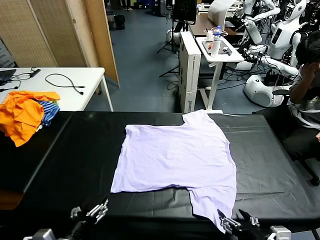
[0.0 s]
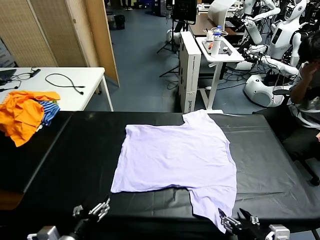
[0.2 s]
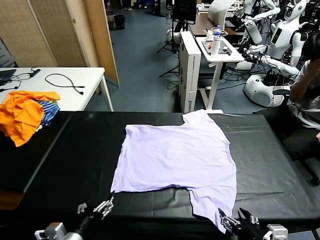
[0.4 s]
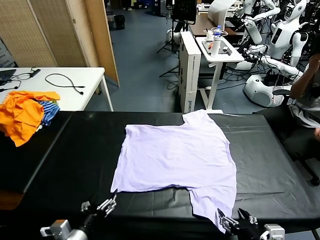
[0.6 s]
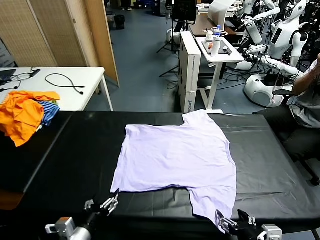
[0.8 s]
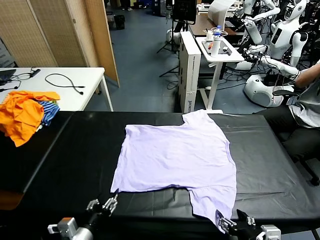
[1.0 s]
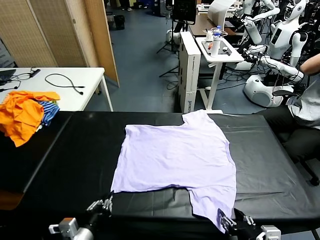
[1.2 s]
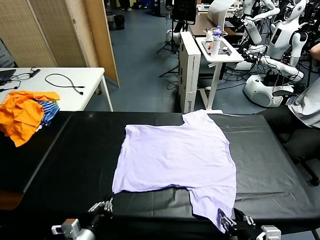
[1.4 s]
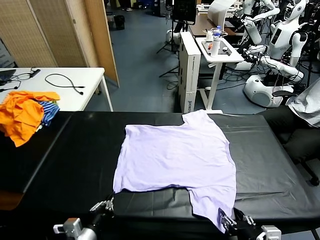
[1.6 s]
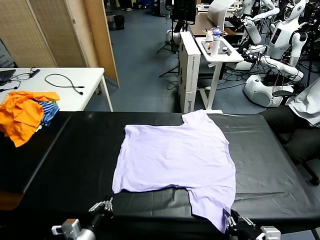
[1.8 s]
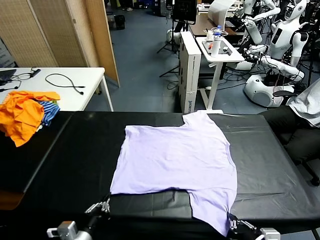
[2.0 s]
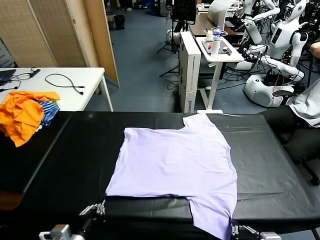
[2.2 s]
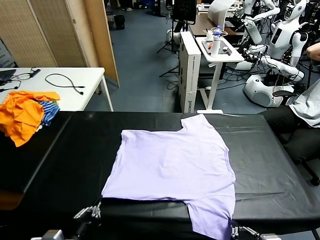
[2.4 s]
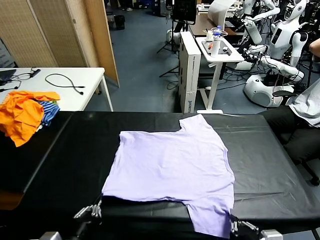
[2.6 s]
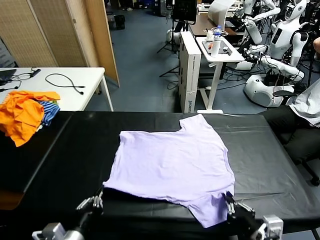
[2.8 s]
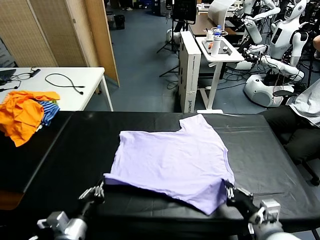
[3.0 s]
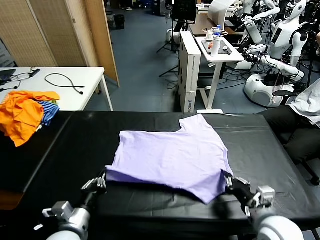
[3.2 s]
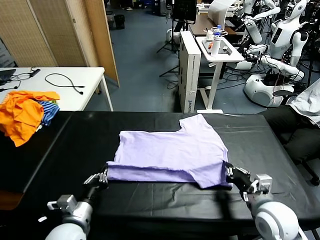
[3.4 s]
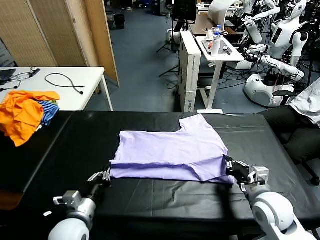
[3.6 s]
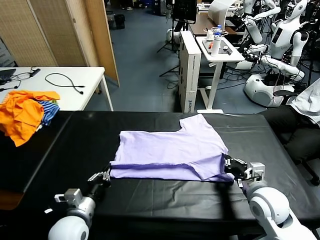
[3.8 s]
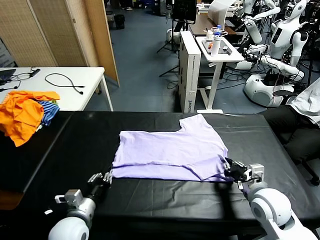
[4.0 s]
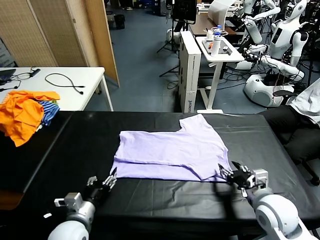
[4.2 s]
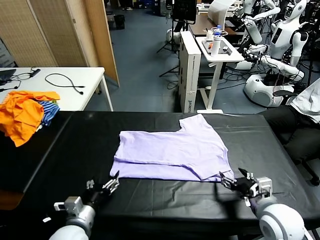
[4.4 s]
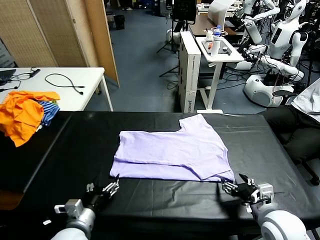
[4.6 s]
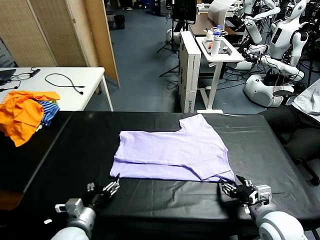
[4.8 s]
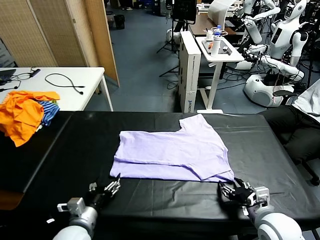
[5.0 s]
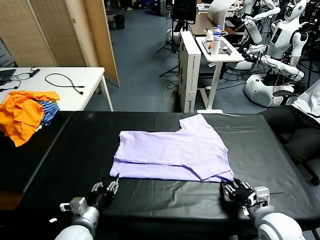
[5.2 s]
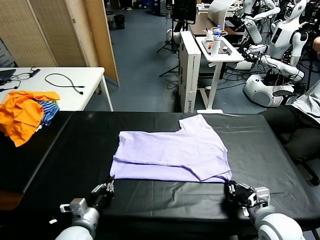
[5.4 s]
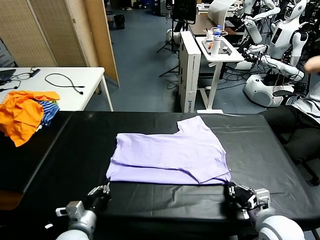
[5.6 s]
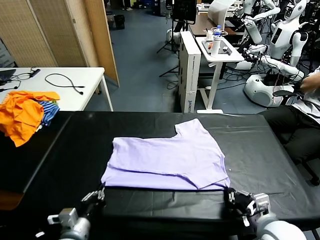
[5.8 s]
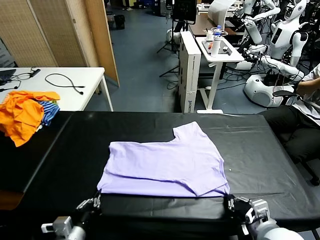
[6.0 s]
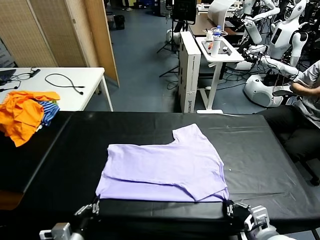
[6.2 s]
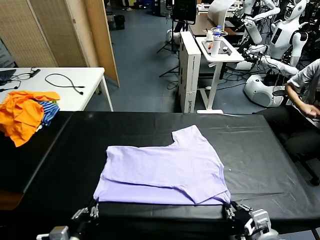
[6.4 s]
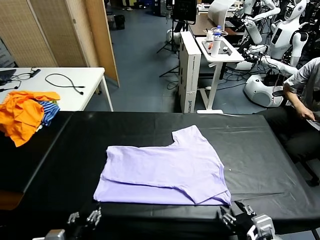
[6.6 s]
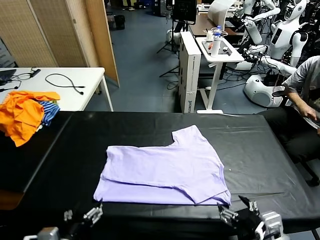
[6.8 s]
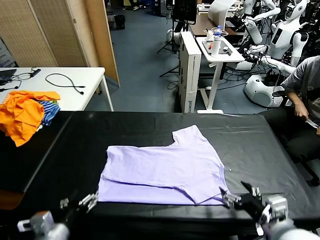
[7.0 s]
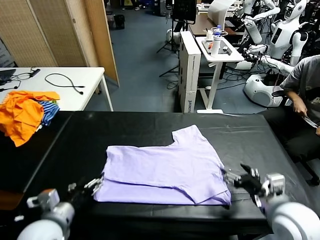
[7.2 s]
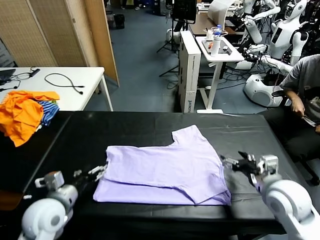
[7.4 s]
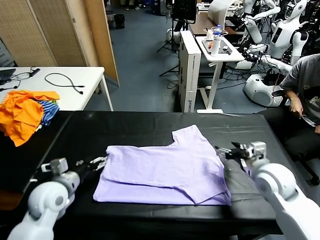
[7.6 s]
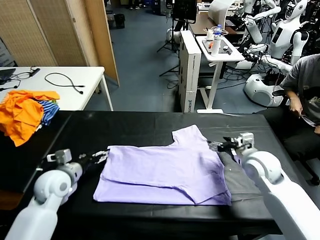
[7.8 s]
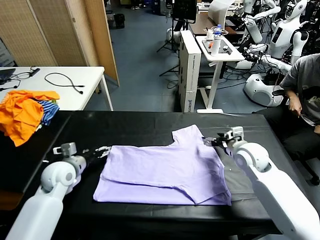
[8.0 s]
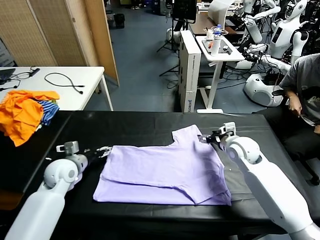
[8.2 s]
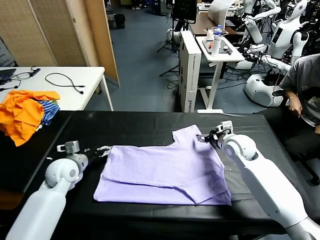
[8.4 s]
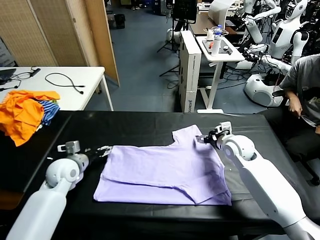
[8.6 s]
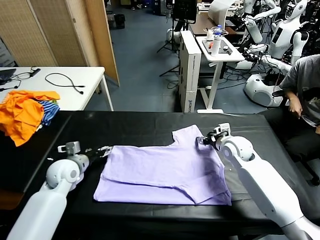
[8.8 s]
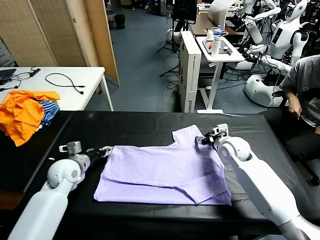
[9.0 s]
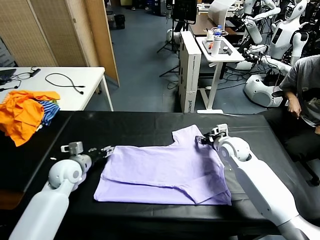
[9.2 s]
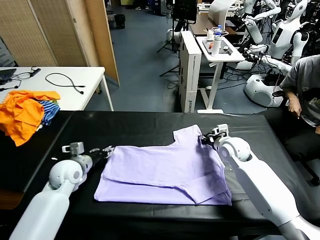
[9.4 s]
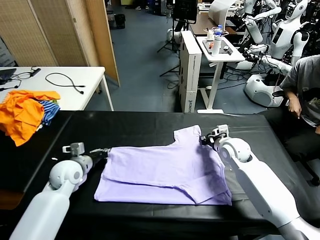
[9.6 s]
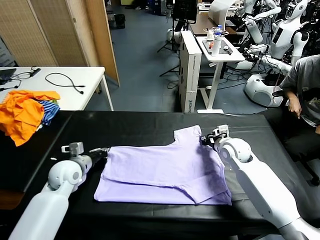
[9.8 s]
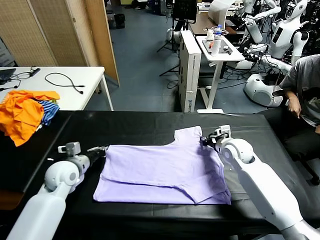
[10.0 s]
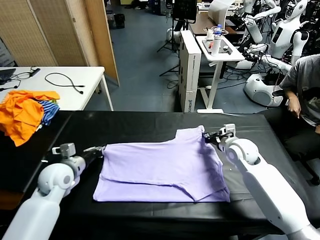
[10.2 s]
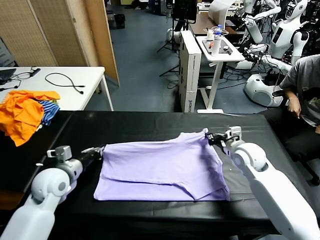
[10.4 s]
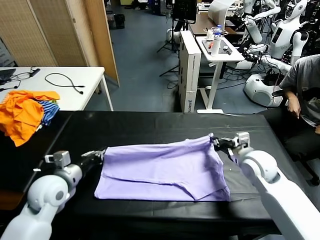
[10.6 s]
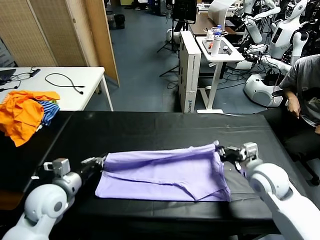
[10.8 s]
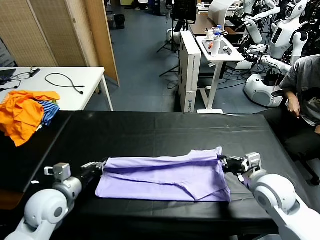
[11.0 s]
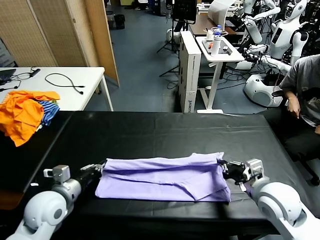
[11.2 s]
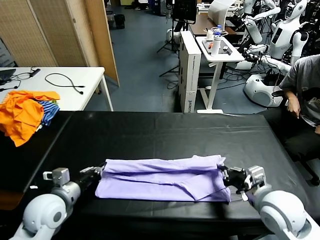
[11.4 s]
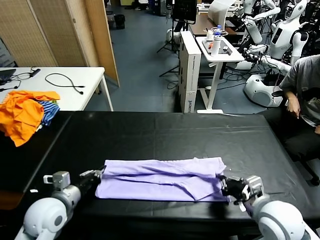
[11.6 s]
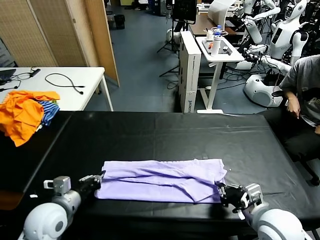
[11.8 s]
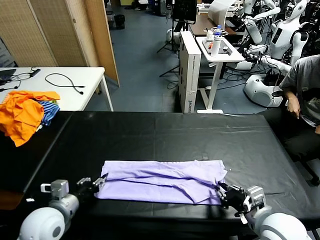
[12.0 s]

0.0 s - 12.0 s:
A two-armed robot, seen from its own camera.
Task of the whole recording: fold and organize the clothes.
Step, 0.0 s - 2.0 s: use both grippers simultaneously to clamp the lower edge of the clothing fabric.
Step, 2.2 s - 4.0 s: use both grippers to drag the lower edge of the fabric forward and fold it over the upper edge.
Step, 4.2 s - 6.6 s: Drag the clothes downward with both gripper.
Step, 6.8 s - 9.8 s: use both grippers simultaneously to clamp the upper edge of the clothing fabric.
1.6 s - 3.0 s: The left gripper changes place by some 5 cm. Meanwhile the right gripper goes about 10 cm forward.
3.0 s - 4.4 s: The left gripper opens. Meanwhile the right gripper opens up.
4.4 s - 6.0 s: Both grippers travel together backward, approximately 5 cm. The left gripper closes. Meanwhile the right gripper closes.
6.0 s - 7.6 s: Both grippers move forward, roughly 20 cm. The right gripper opens its fingers; the left gripper opens up.
7.6 s - 9.0 s: The right gripper heads forward and downward, covering roughly 10 cm, and closes up. Meanwhile the left gripper is displaced forward by approximately 5 cm.
9.0 s - 10.4 s: The two grippers go about 10 cm backward. The left gripper closes up. Meanwhile the right gripper closes up.
10.4 s - 12.0 s: The left gripper moves backward, roughly 10 cm, and opens. Meanwhile the right gripper heads backward, covering roughly 20 cm, and opens its fingers.

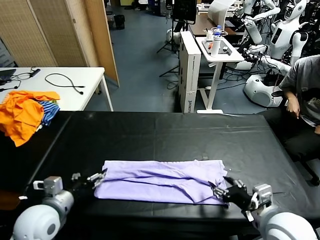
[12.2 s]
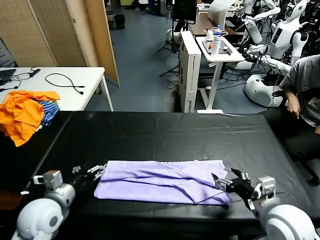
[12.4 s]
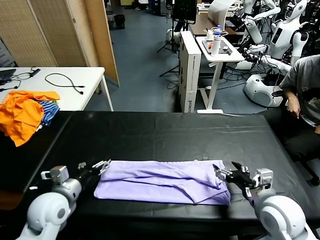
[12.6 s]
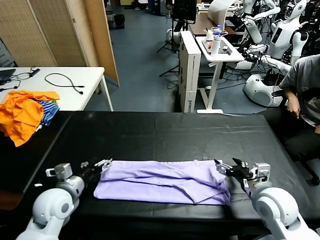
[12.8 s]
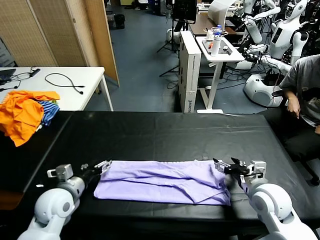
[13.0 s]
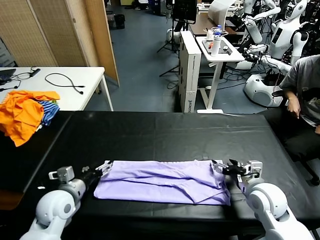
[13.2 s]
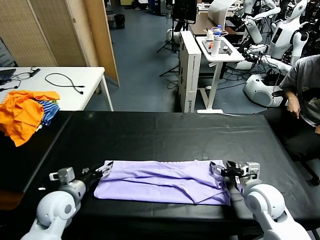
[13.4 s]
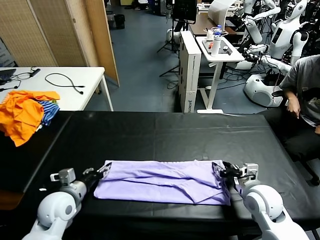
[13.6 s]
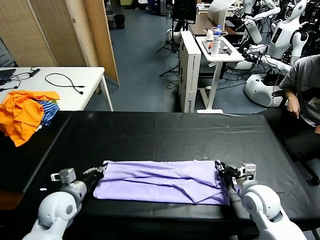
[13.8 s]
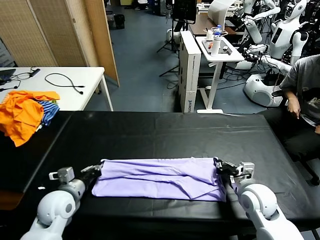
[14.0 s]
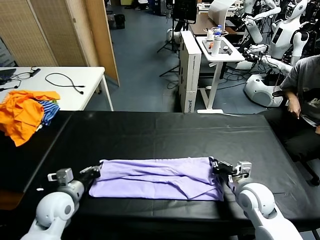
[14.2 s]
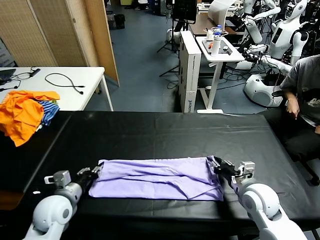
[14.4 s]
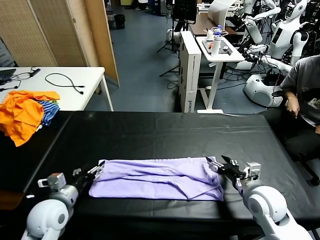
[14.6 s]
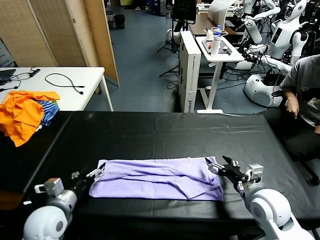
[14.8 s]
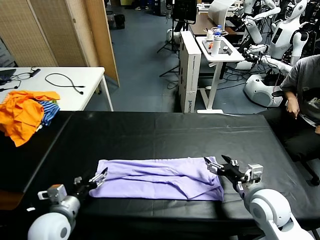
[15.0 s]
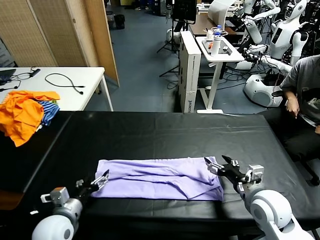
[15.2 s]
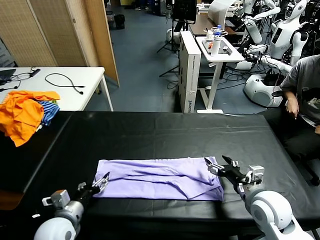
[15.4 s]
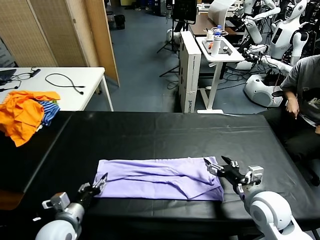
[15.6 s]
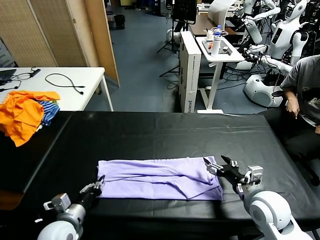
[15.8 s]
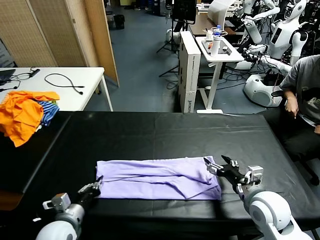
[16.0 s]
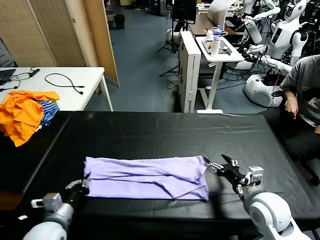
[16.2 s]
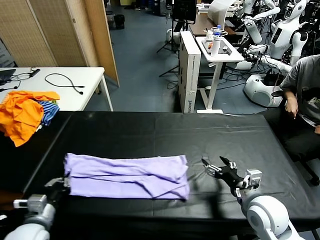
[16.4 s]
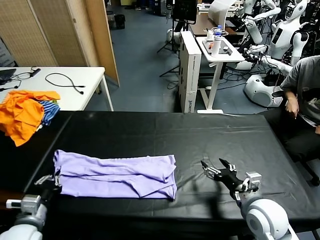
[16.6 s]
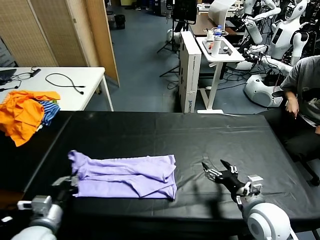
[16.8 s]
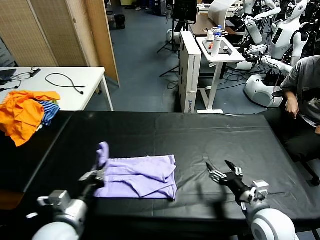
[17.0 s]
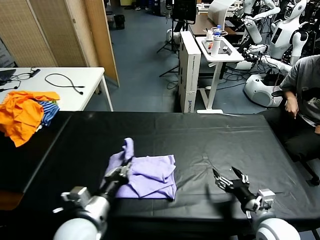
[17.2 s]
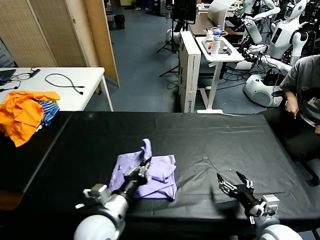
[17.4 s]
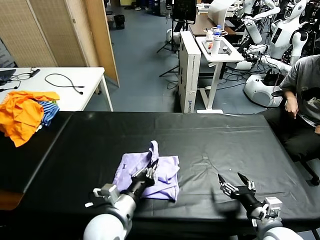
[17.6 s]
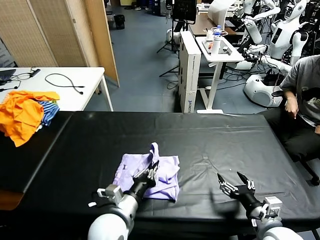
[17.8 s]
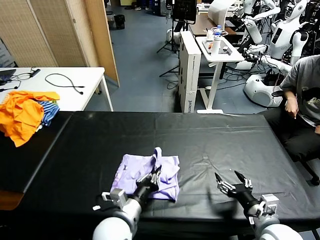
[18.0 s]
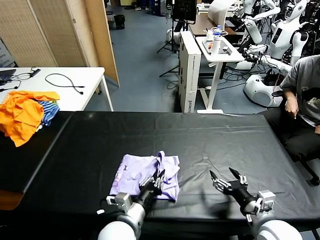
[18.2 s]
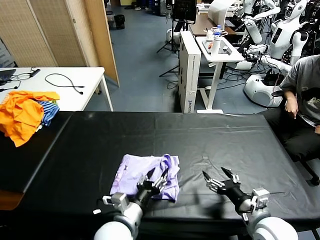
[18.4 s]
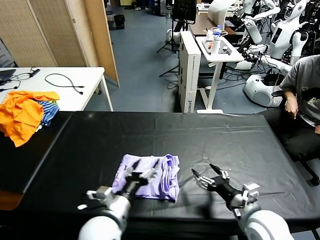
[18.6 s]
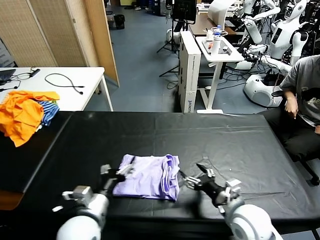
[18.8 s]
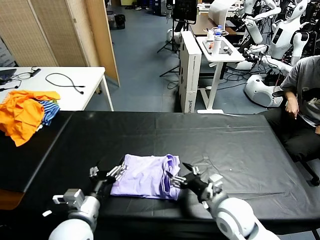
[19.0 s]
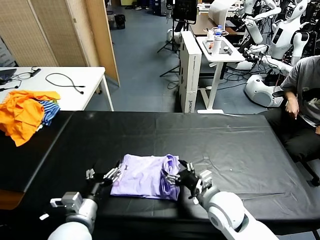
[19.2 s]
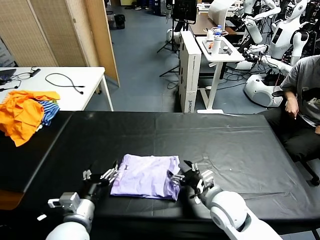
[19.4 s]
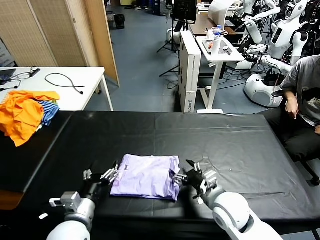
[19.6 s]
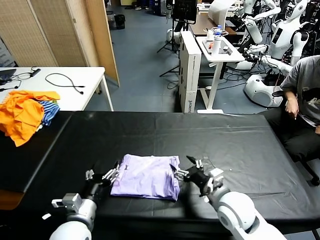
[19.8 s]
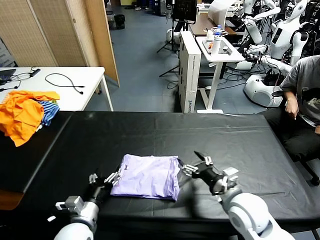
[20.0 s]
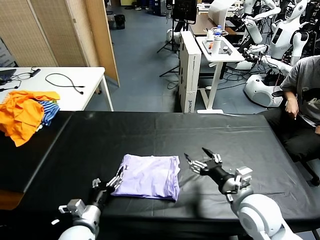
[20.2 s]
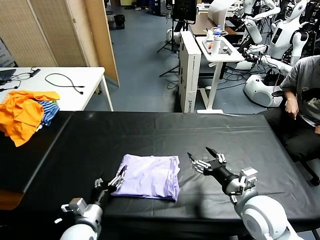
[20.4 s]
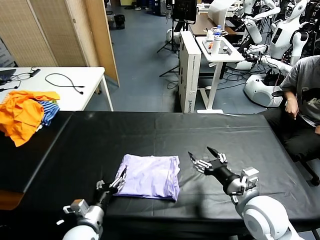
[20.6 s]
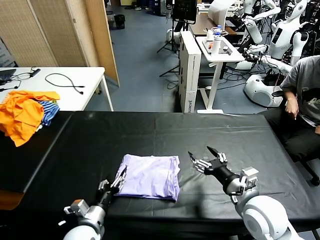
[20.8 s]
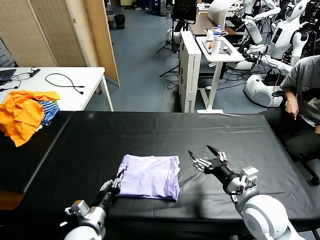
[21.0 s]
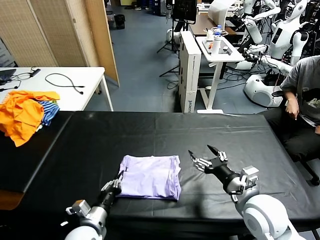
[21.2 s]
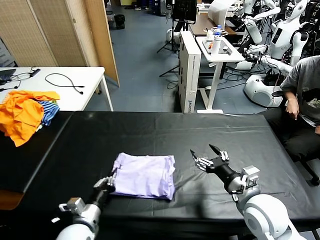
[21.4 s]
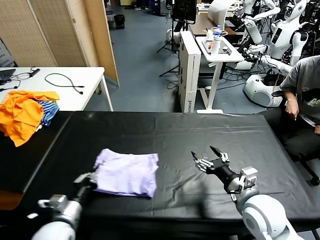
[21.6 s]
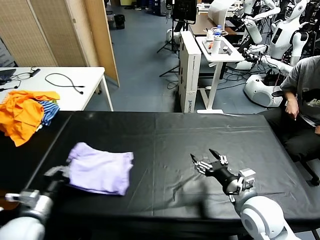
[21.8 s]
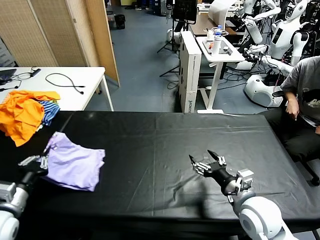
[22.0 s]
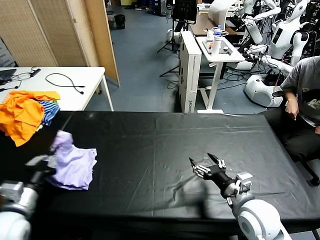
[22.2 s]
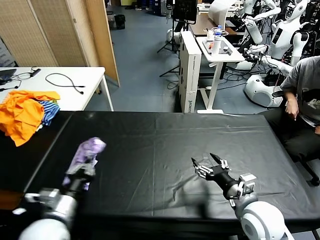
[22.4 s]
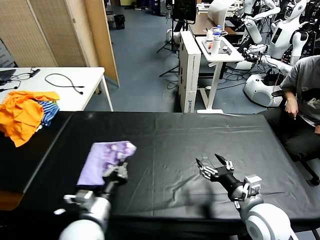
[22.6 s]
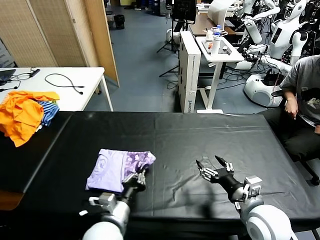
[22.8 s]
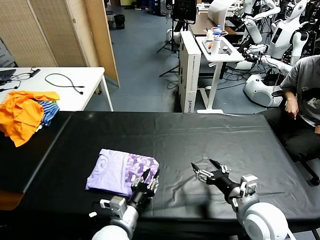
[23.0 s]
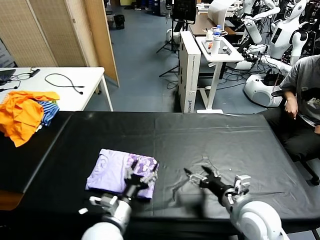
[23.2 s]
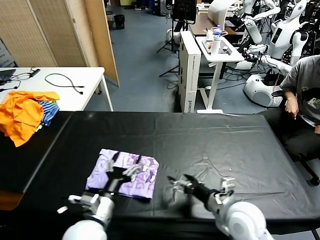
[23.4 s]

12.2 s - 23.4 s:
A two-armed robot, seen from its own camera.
Task of the whole recording: fold and organize the clothes.
Step, 12.2 s - 14.6 s: use both grippers to drag the upper edge of the fabric backward and fold it over the lower edge.
Step, 14.8 s - 16.0 s: use the left gripper to clamp the left edge of the fabric.
Step, 16.2 s - 19.6 s: use the left gripper to drag the left edge of the fabric to the left and folds it over the right edge.
Step, 19.8 s - 23.2 s: Flip the folded clothes over with left gripper.
12.2 s - 13.8 s: The right gripper moves forward and downward, roughly 15 cm, and closes up. The left gripper shifts some 10 cm downward and forward, and closes.
13.8 s - 15.4 s: The right gripper shifts by approximately 5 cm, and opens up. Meanwhile the left gripper heads backward, covering about 5 cm, and opens up.
15.4 s - 17.0 s: The left gripper travels upward and to the right by about 10 cm, and closes its fingers; the right gripper travels backward by approximately 5 cm.
17.0 s - 18.6 s: The left gripper travels to the right by roughly 10 cm, and opens up.
18.6 s - 20.2 s: The right gripper reaches about 10 cm to the left, then returns. The left gripper shifts roughly 10 cm to the left and downward.
20.2 s - 21.8 s: The left gripper is displaced to the left and upward by roughly 15 cm, and closes its fingers.
21.8 s - 23.4 s: The left gripper goes left and right, some 25 cm each way, reversing 2 times, and opens its fingers.
